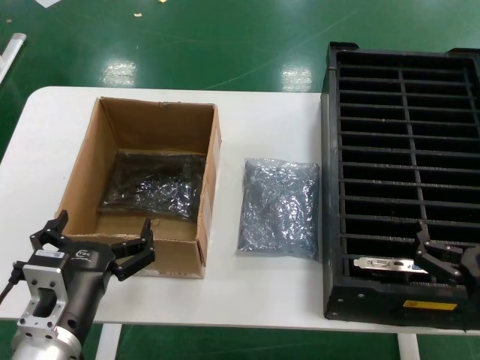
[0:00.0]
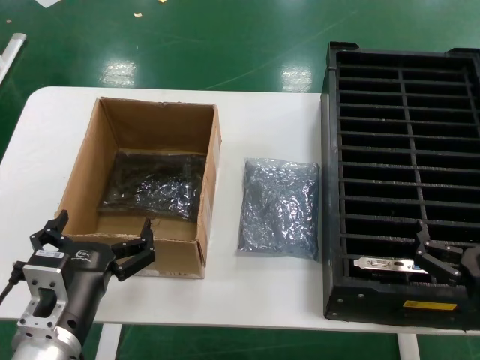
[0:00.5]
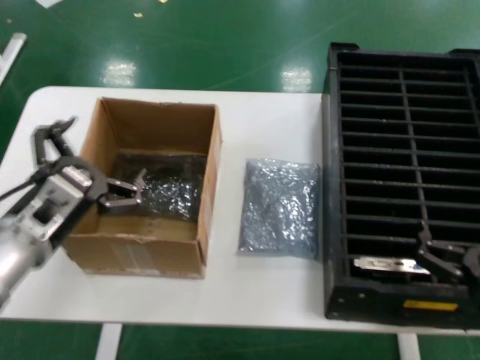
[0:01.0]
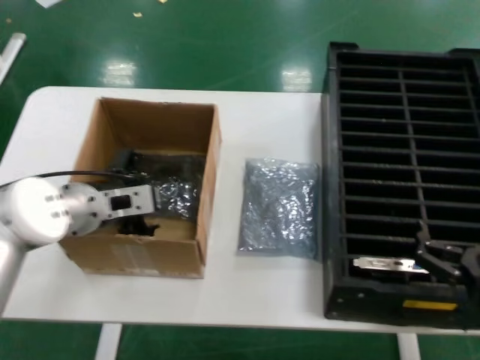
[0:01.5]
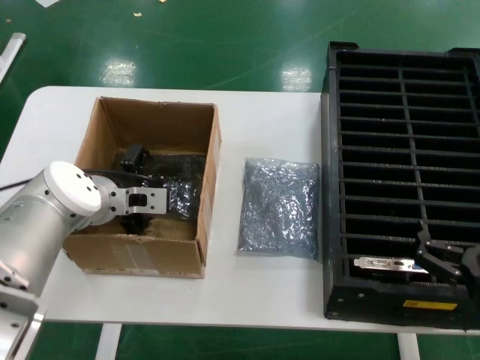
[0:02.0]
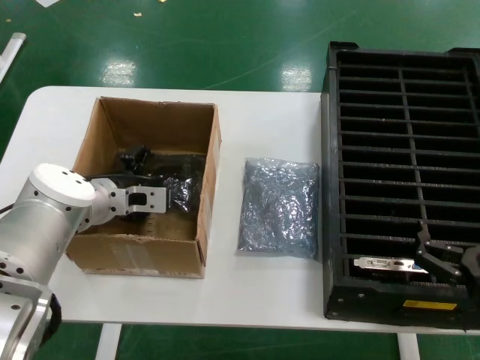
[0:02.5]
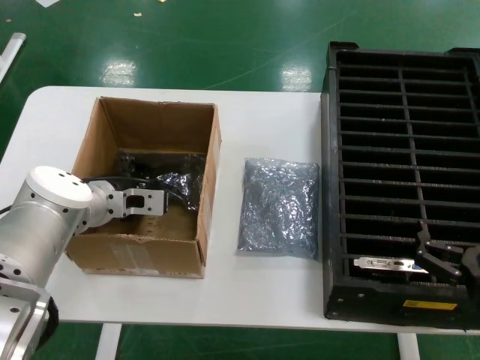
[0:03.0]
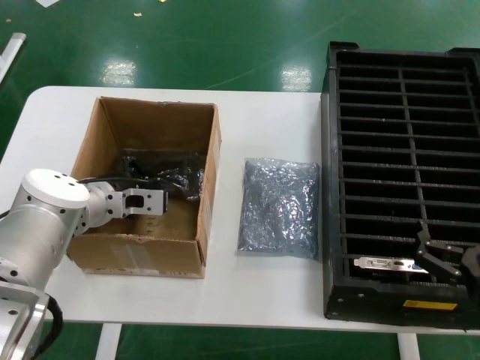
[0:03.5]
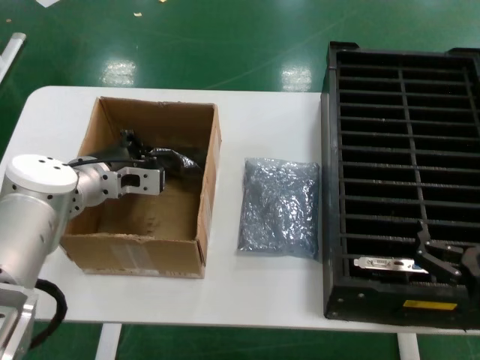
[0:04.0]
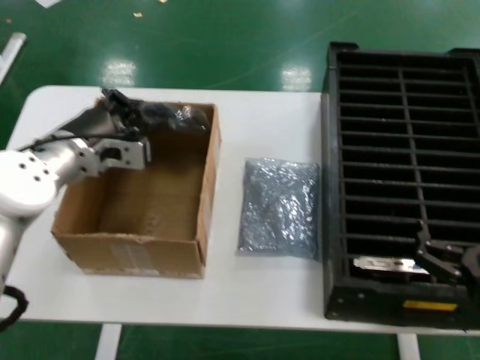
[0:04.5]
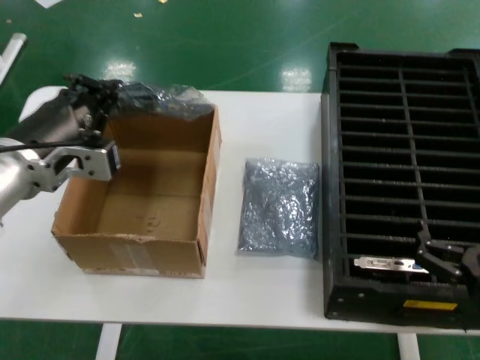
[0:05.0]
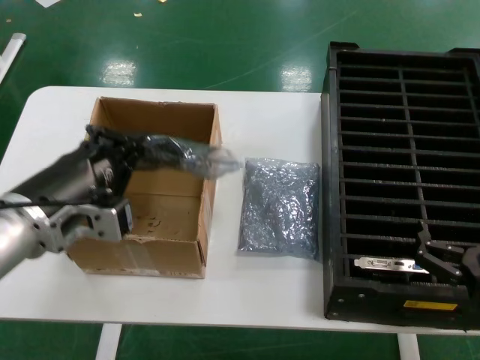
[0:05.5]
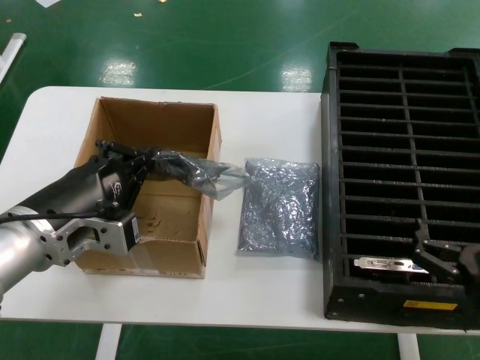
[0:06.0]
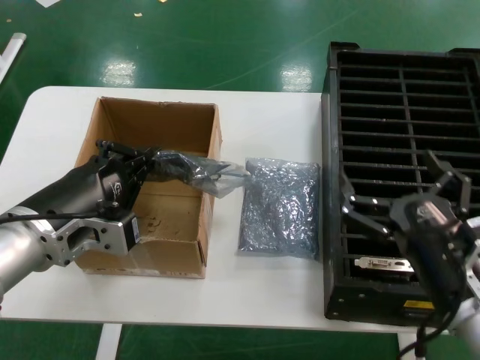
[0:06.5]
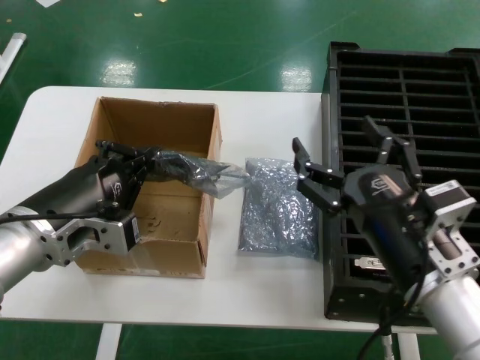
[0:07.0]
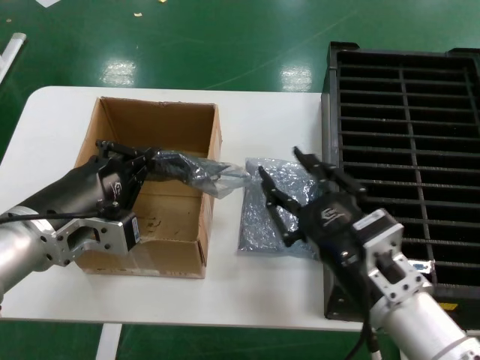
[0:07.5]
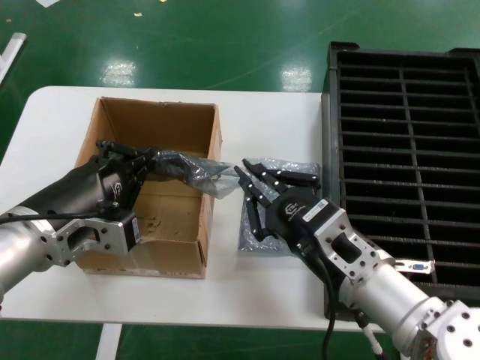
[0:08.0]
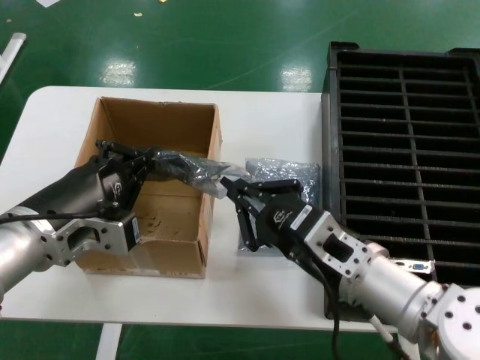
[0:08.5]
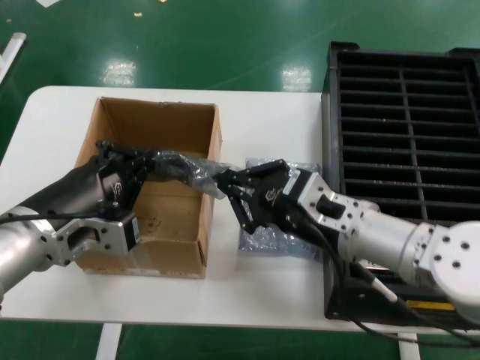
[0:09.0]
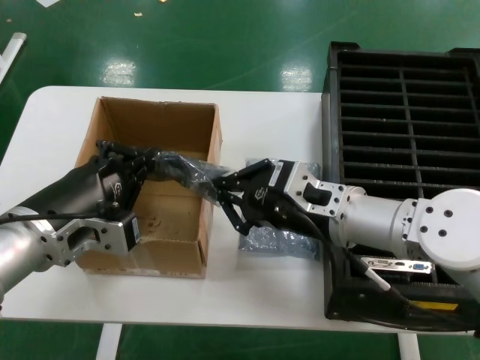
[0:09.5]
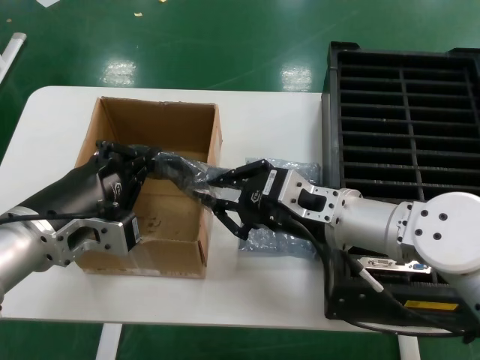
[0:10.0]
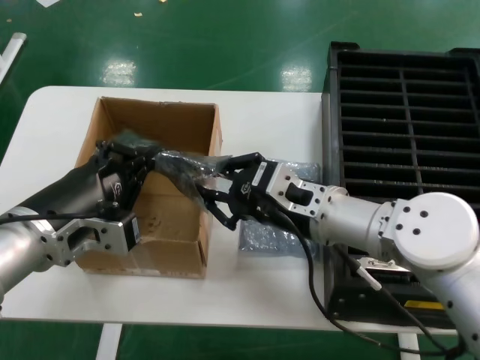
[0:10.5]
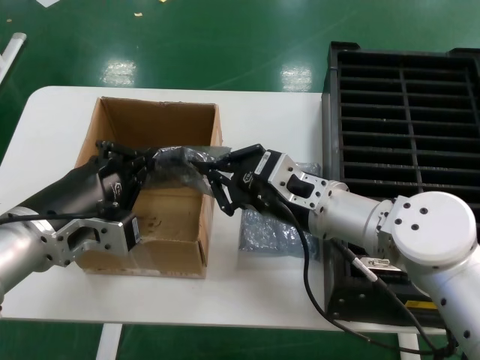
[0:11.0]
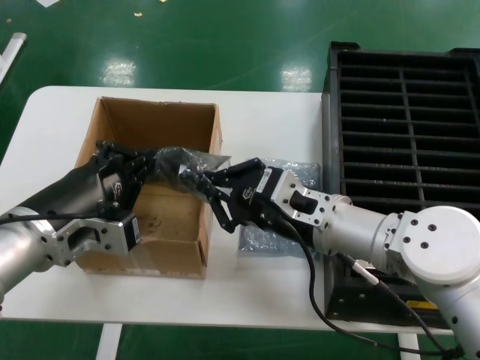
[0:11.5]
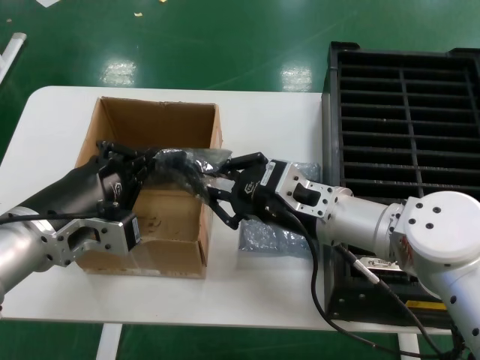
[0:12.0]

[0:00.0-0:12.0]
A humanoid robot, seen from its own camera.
Task of the whole recording: take out graphics card from box remove packaging put into black container.
Step, 0:00.0 to 0:03.0: Grasp the bag.
Step, 0:03.5 to 0:06.0: Lift the bag.
0:00.0 to 0:02.0: The left hand moves forward, approximately 25 cm.
0:02.0 to 0:04.0: The hands move only a little.
0:04.0 to 0:06.0: The left hand goes approximately 20 cm backward.
0:06.0 to 0:08.0: The right hand moves to the left and forward, approximately 15 cm.
0:08.0 to 0:10.0: The right hand shifts about 10 cm forward and upward.
0:10.0 to 0:12.0: There are only small adjustments of the hands.

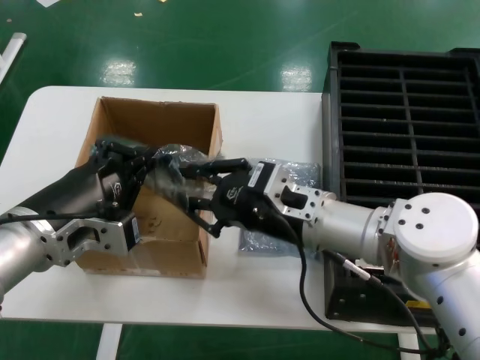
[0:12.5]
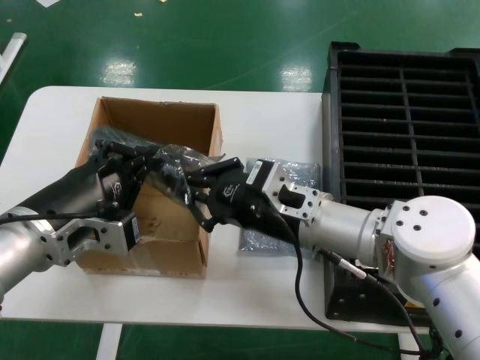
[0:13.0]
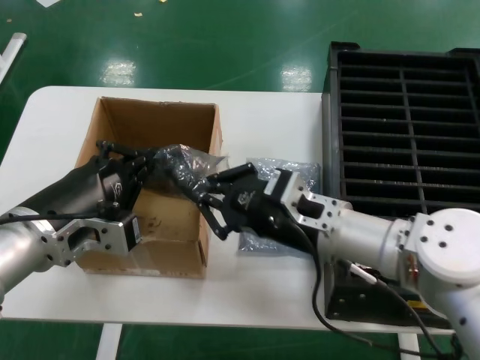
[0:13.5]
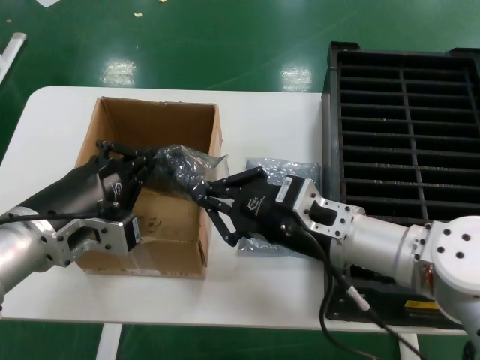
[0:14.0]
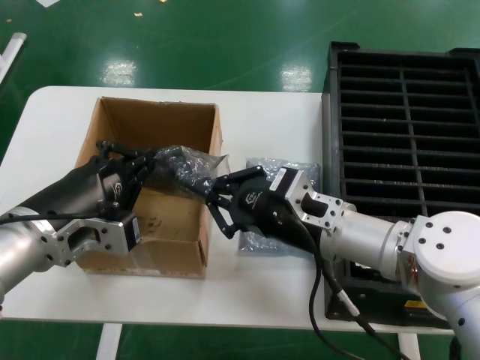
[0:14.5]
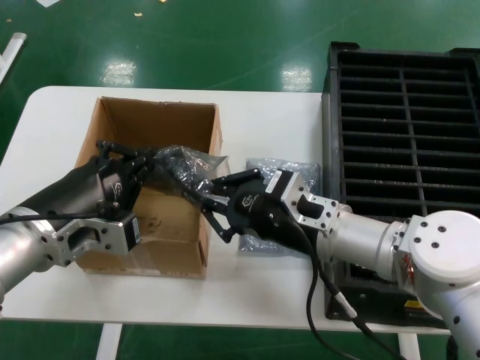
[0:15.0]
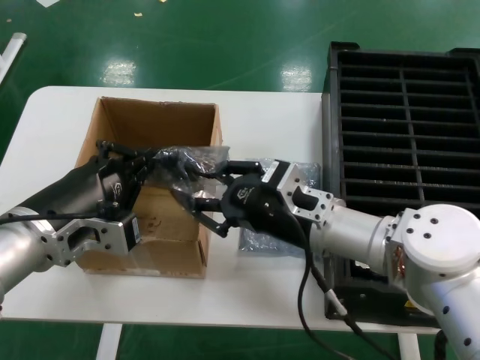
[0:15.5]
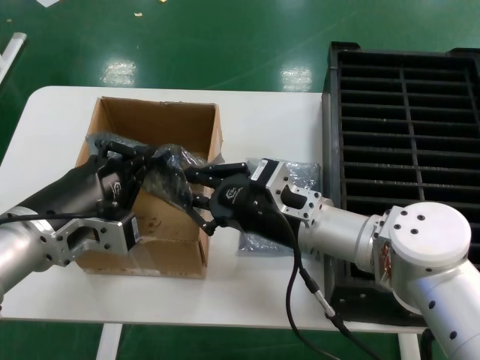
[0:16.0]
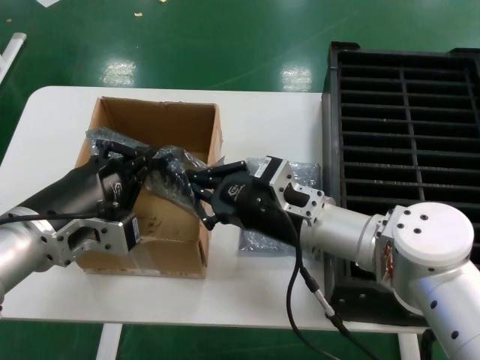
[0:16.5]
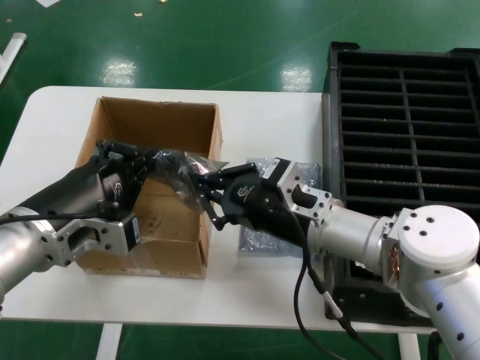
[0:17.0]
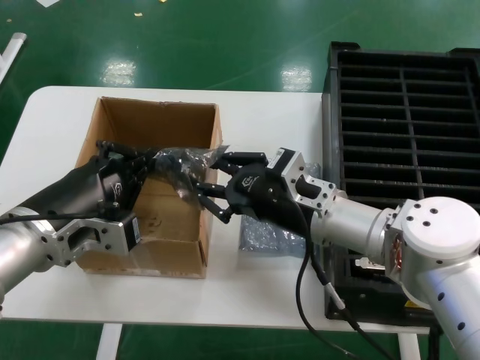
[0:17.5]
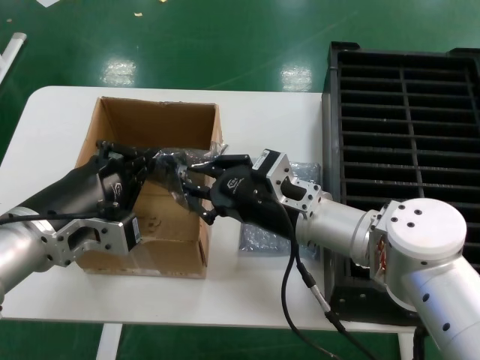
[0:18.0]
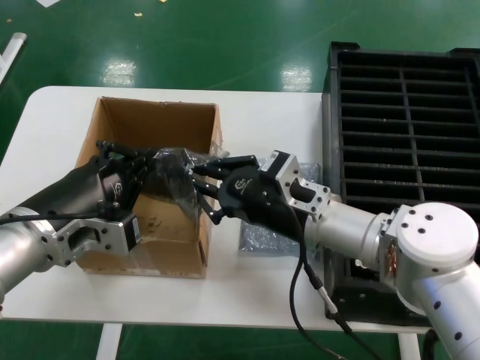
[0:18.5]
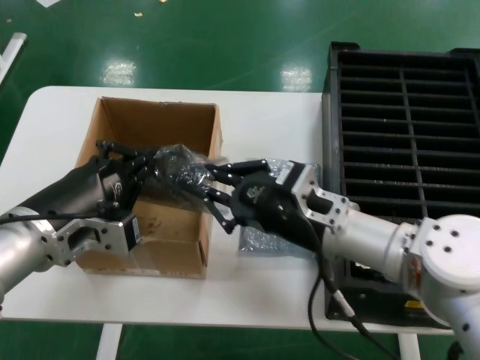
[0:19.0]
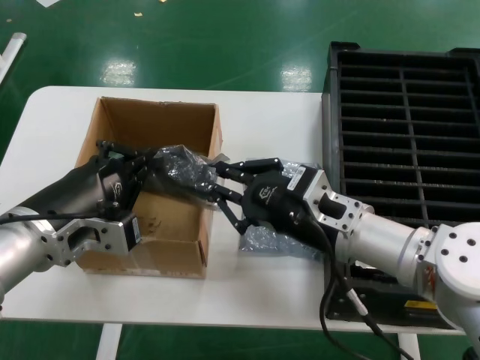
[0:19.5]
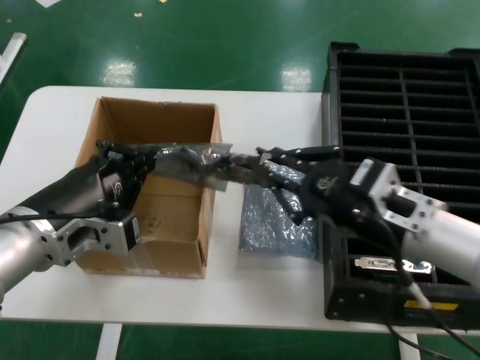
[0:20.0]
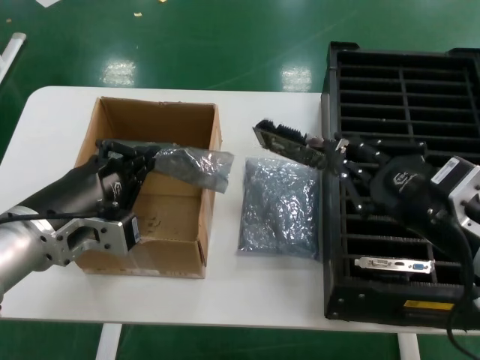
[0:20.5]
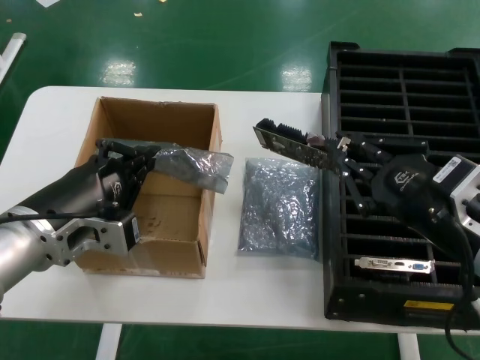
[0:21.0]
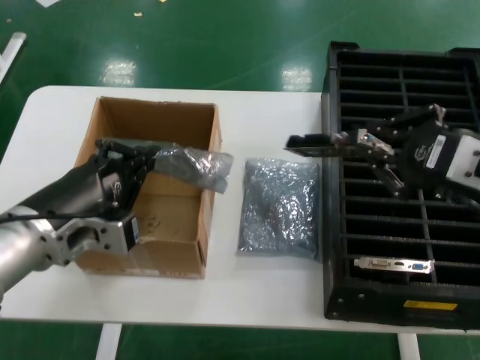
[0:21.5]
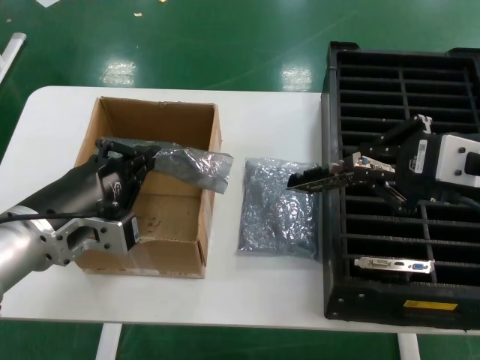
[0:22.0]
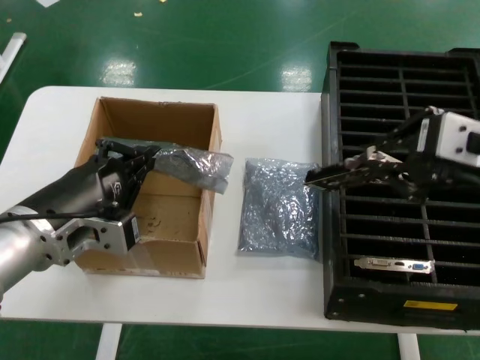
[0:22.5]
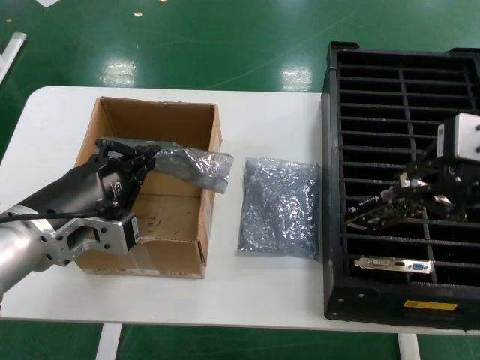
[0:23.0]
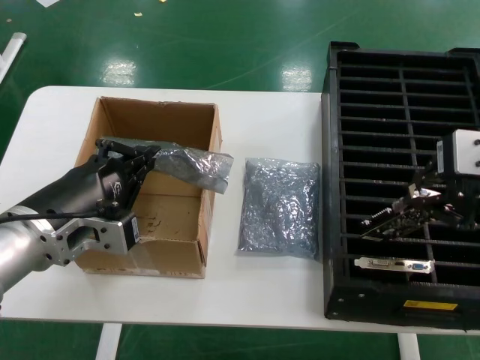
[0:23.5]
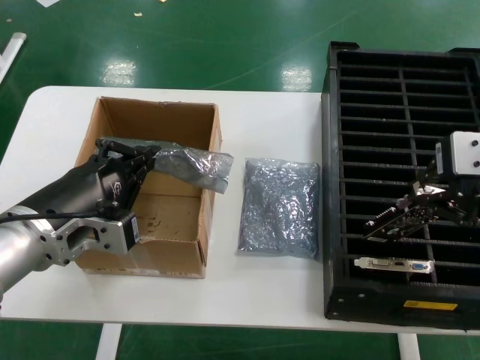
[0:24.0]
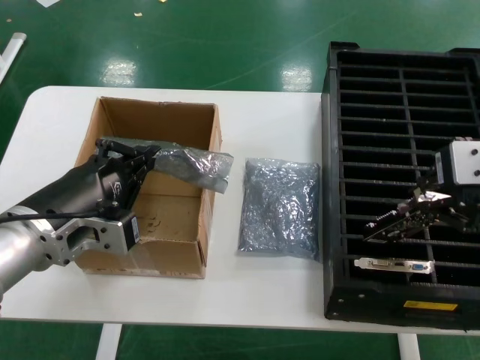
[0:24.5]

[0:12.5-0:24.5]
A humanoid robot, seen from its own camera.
Task of the whole recording: take out graphics card from box remove packaging put into black container.
Step, 0:12.5 to 0:21.0: Take out the hard disk of the bag.
0:12.5 to 0:18.5: The hands move only a little.
0:18.5 to 0:20.5: The right hand travels to the right and backward by approximately 20 cm.
0:20.5 to 0:22.5: The right hand moves upward, some 15 cm.

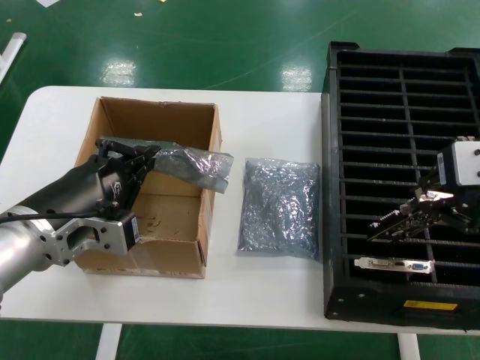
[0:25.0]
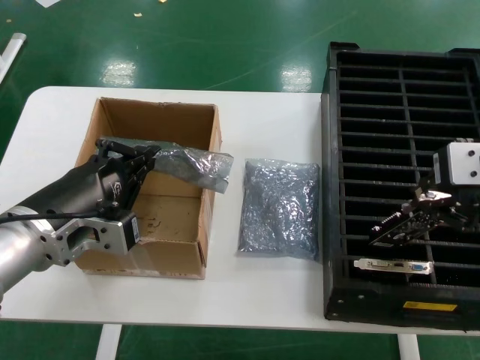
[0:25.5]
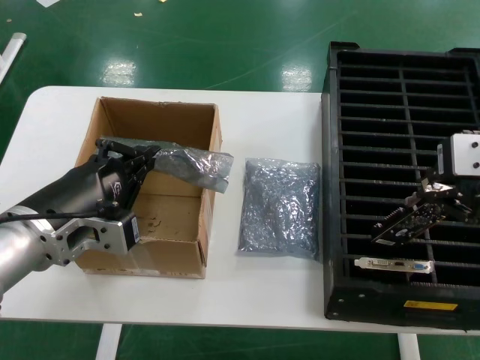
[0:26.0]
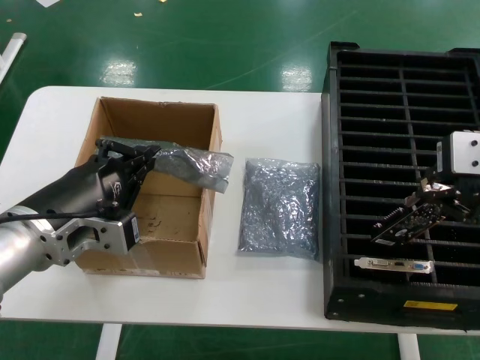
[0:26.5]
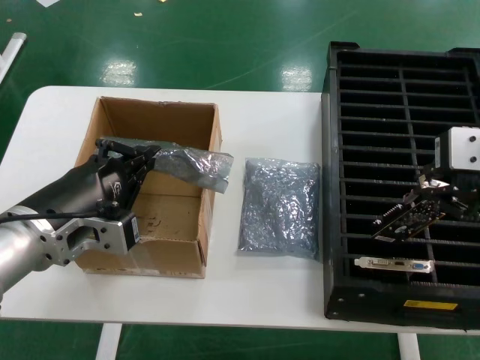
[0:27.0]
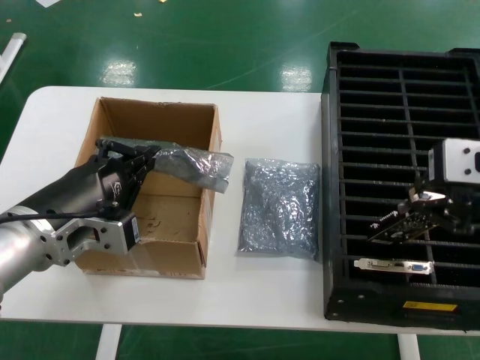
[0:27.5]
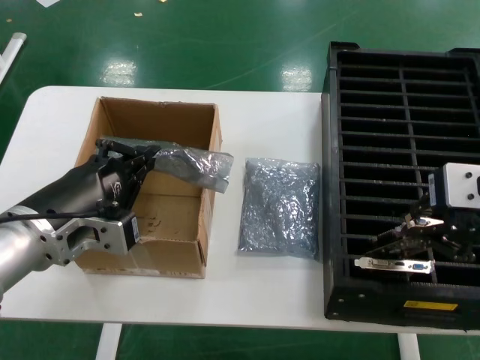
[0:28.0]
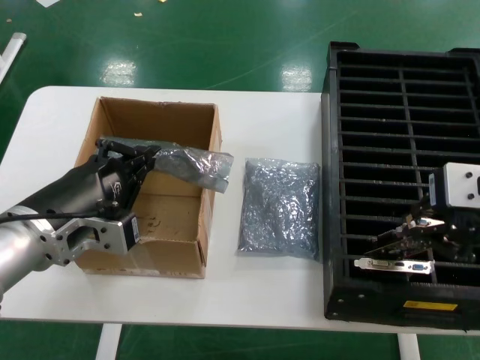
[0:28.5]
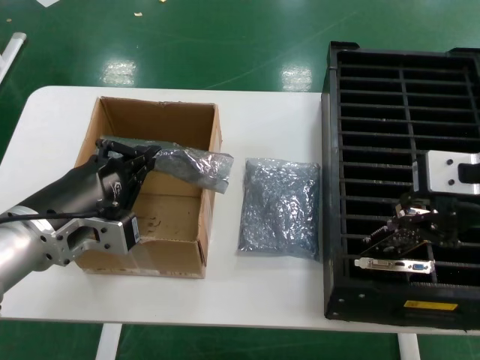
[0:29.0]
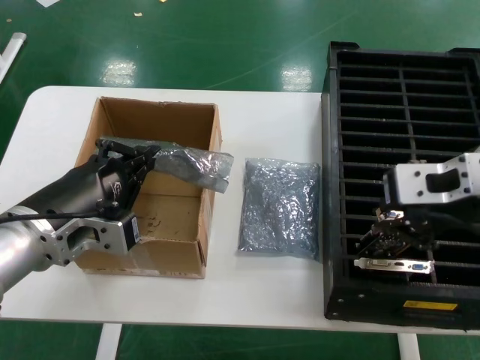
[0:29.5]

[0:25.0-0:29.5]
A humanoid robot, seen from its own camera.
Task of the whole recording: take out graphics card from box remove packaging put into black container.
0:25.0 to 0:27.0: The hands stay close to where they were, moving slightly.
0:27.0 to 0:29.5: The right hand ends up some 5 cm from where it was.
